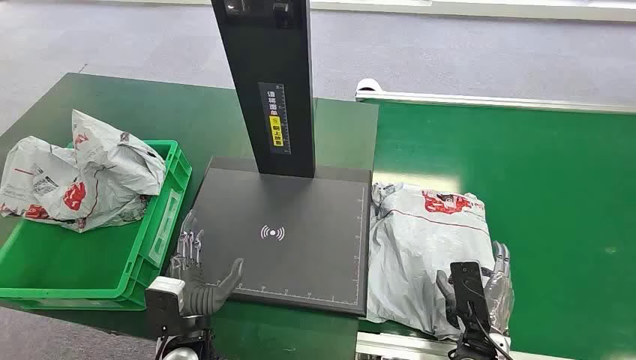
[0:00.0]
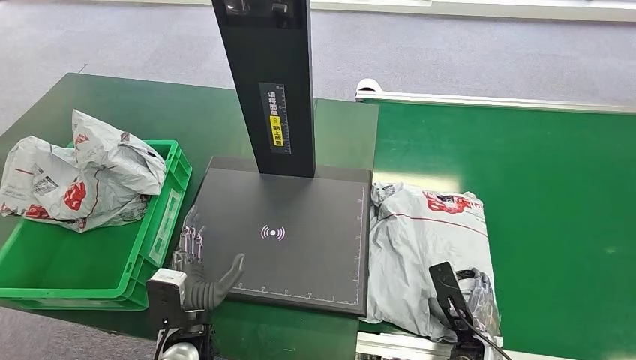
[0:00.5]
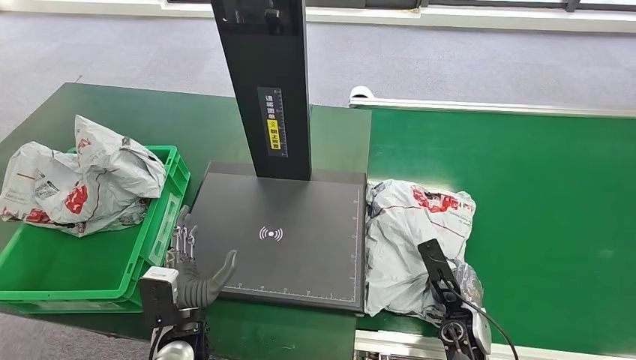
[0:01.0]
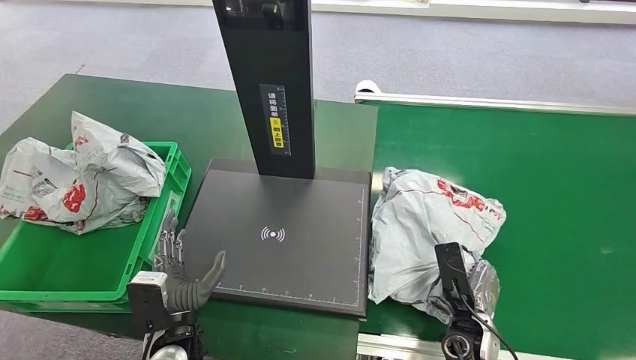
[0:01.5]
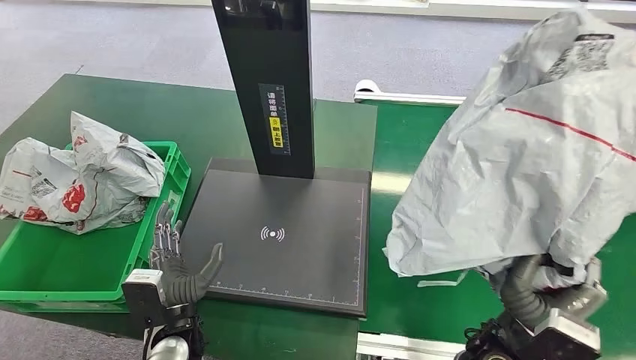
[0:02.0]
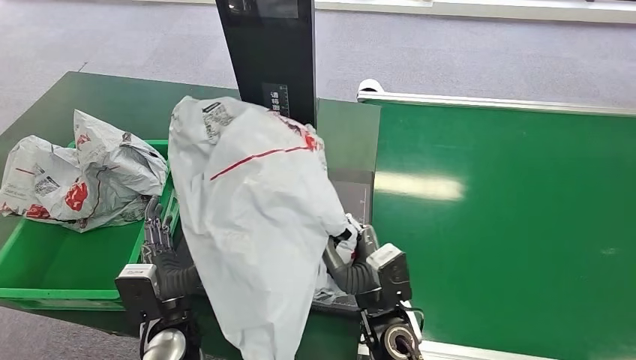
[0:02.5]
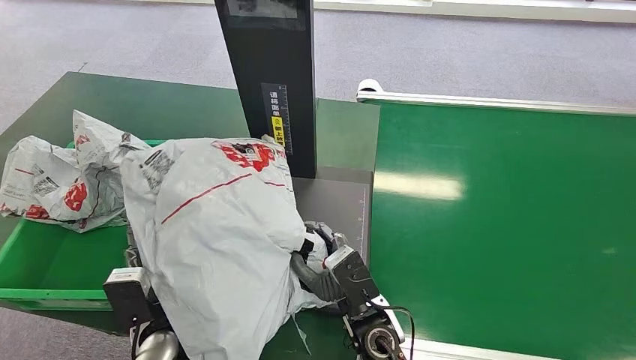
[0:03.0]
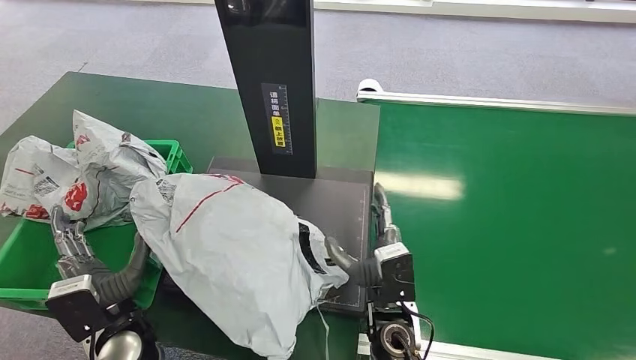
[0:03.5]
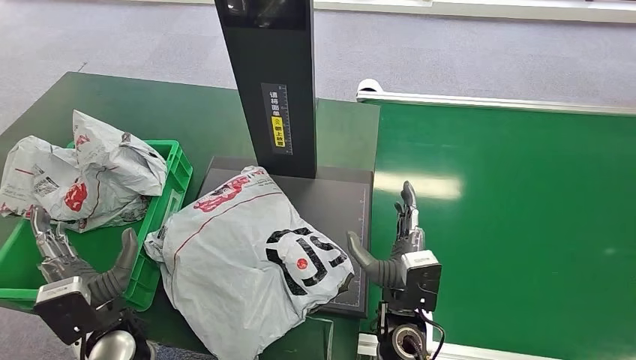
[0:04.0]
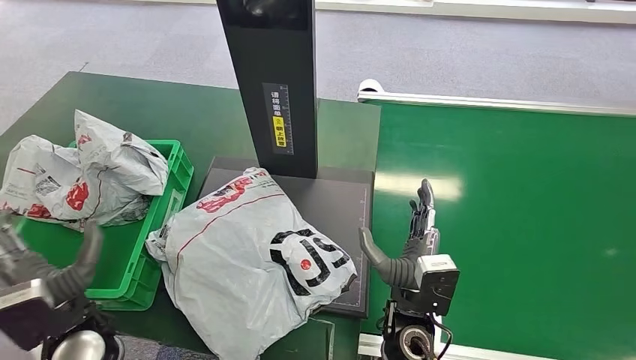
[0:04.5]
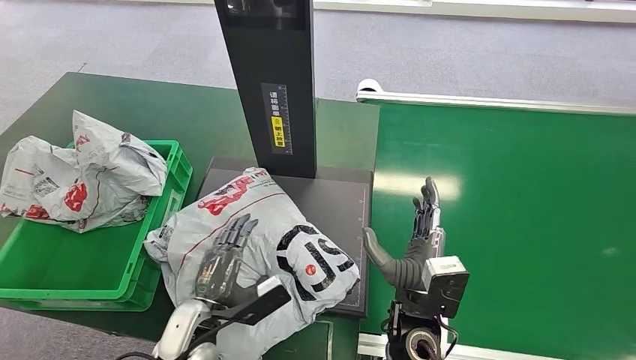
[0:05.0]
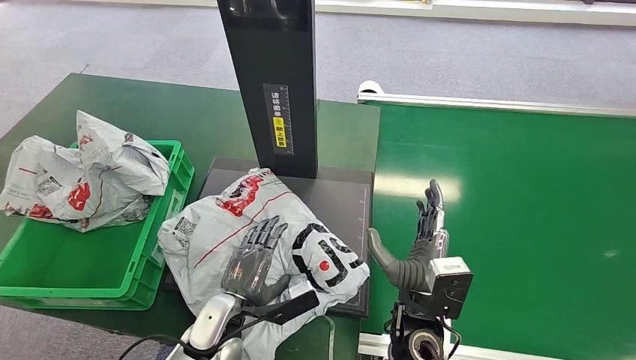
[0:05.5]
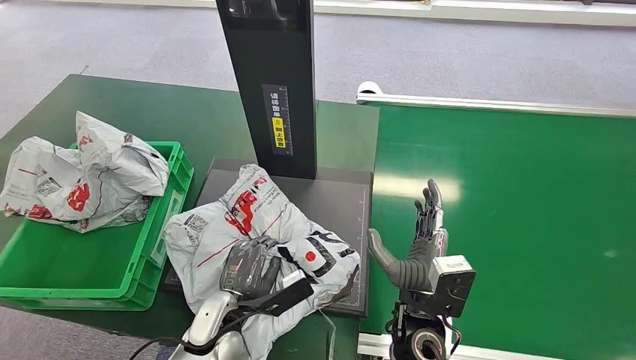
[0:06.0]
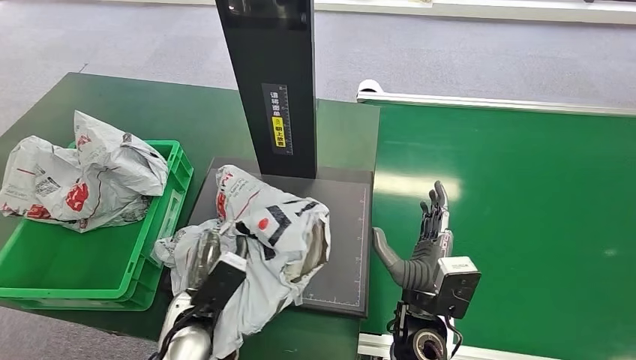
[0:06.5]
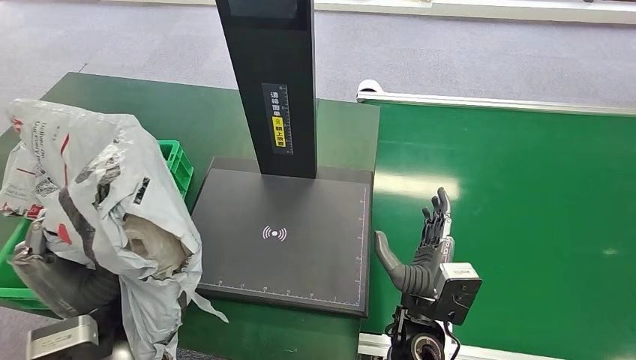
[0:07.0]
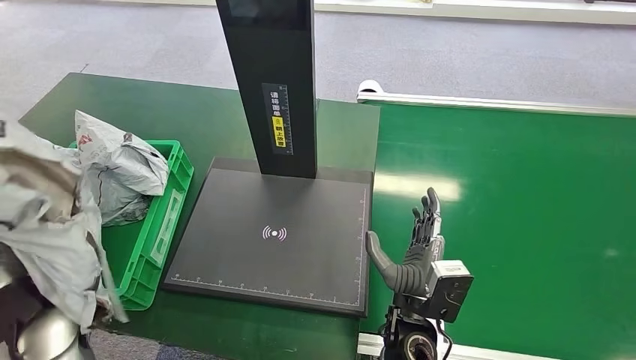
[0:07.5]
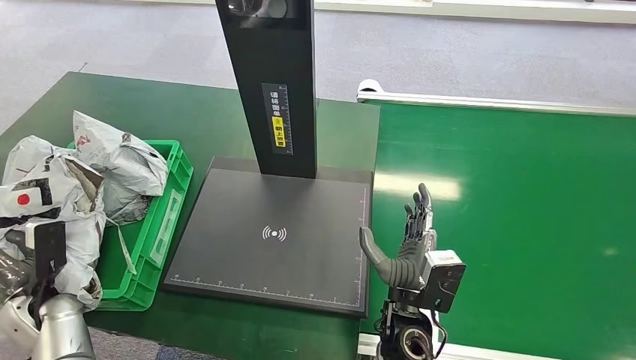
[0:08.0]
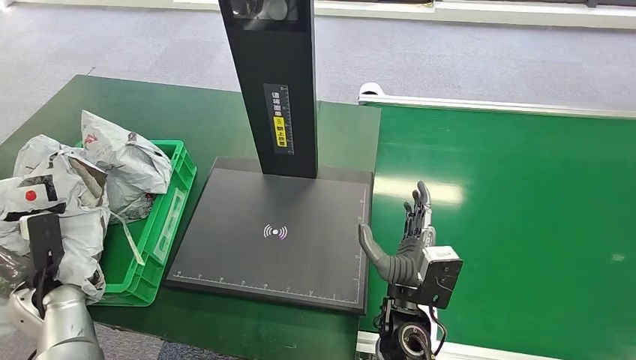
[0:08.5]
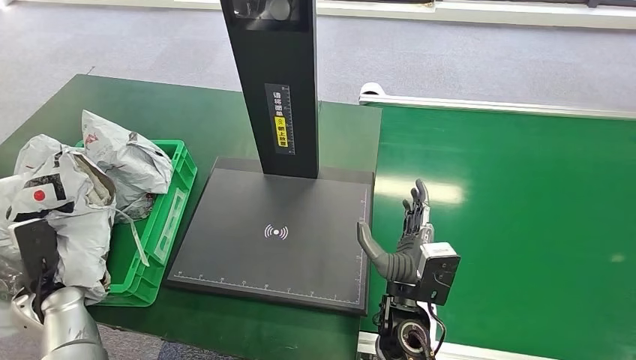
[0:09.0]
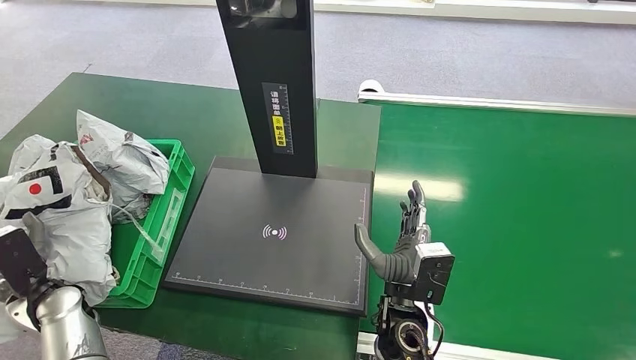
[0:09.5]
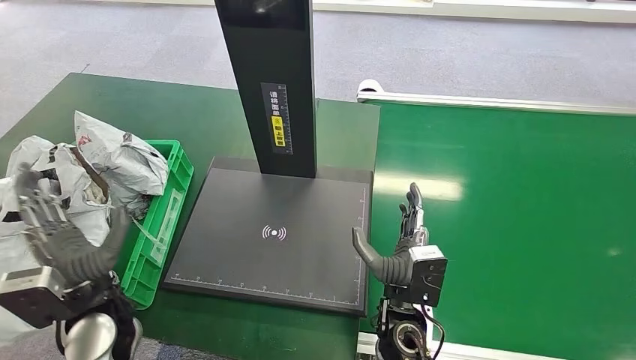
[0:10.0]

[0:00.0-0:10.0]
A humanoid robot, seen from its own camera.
Step, 0:00.0 to 0:01.5: Pick up the package from the conveyor belt.
Step, 0:02.0 to 0:03.5: Place the package onto the inbound machine.
Step, 0:04.0 to 0:07.0: Pick up the package from the inbound machine.
Step, 0:07.5 to 0:10.0: Place the package into the parcel locker.
0:08.0 to 0:10.0: The left hand moves to the right and upward, some 15 cm.
